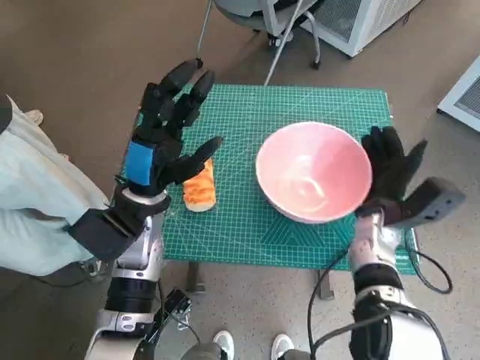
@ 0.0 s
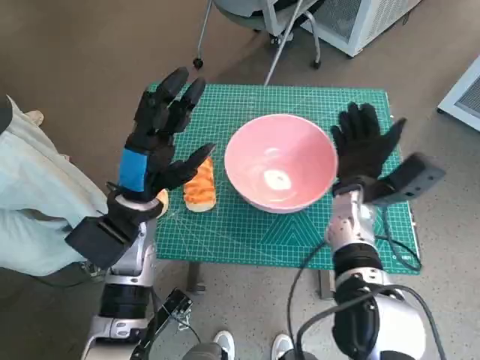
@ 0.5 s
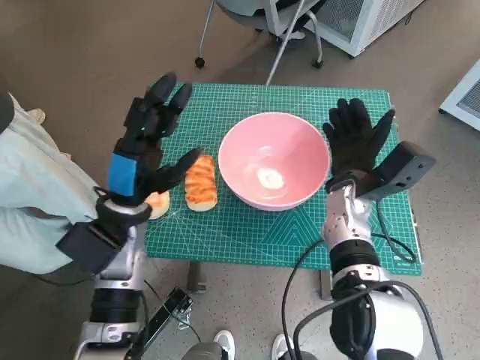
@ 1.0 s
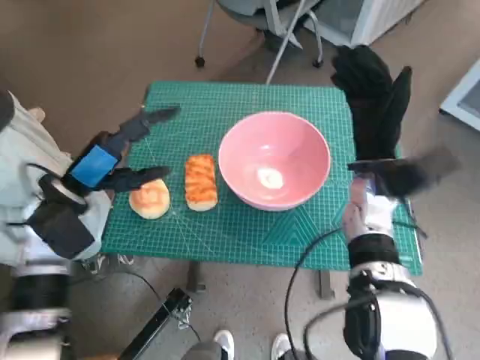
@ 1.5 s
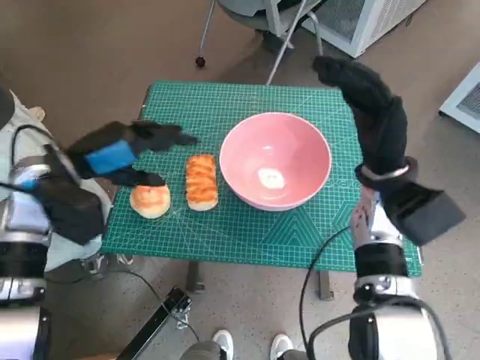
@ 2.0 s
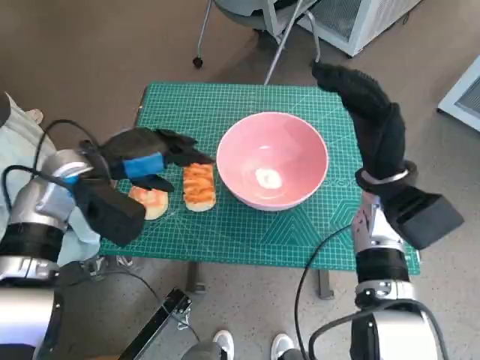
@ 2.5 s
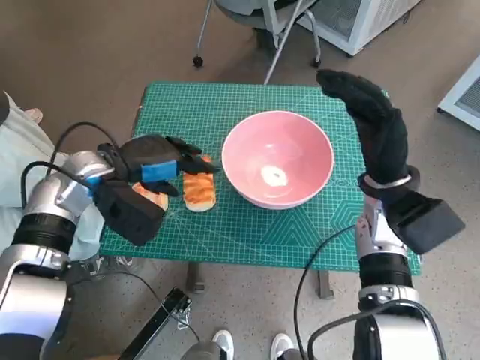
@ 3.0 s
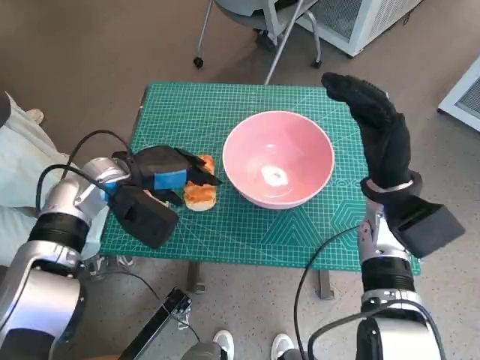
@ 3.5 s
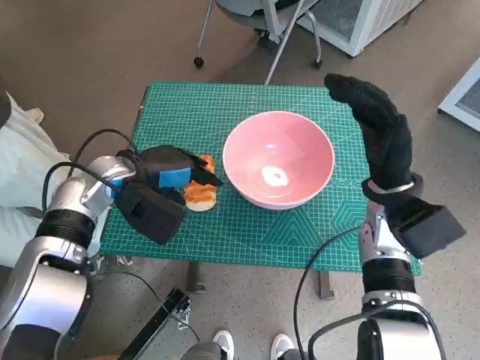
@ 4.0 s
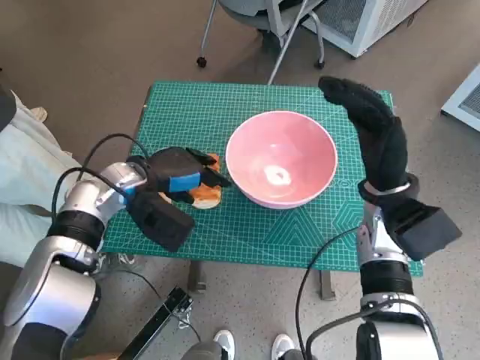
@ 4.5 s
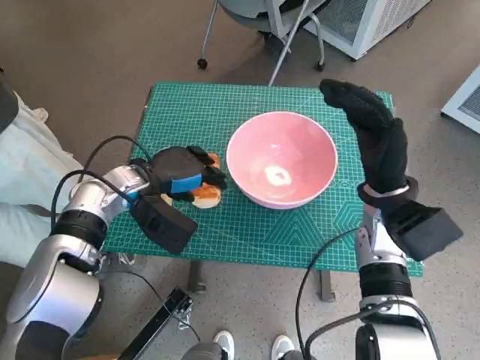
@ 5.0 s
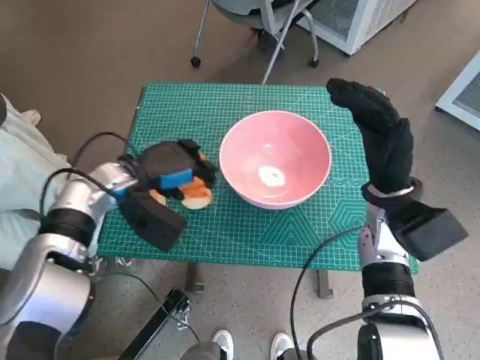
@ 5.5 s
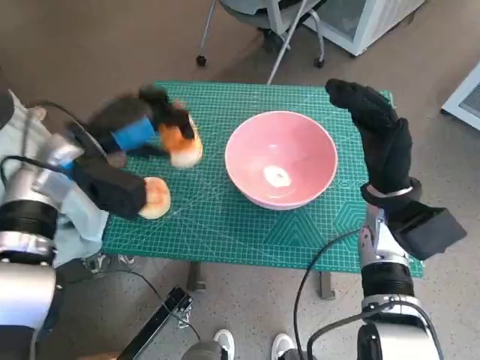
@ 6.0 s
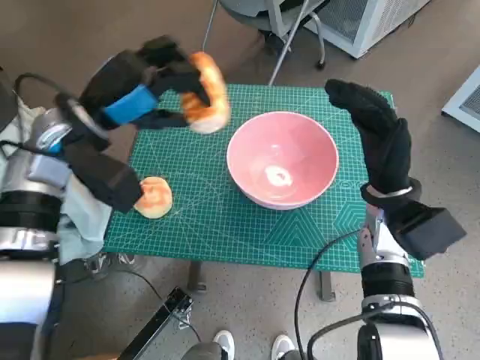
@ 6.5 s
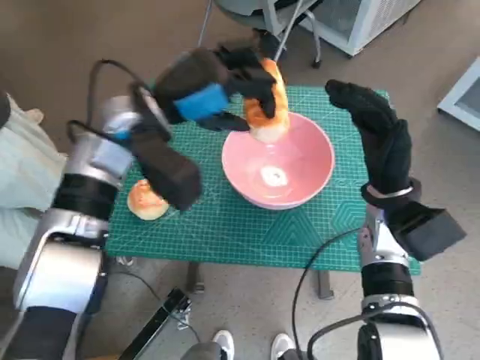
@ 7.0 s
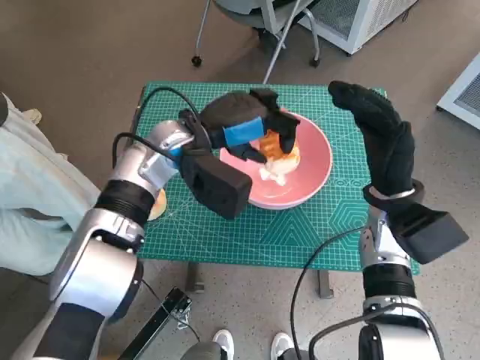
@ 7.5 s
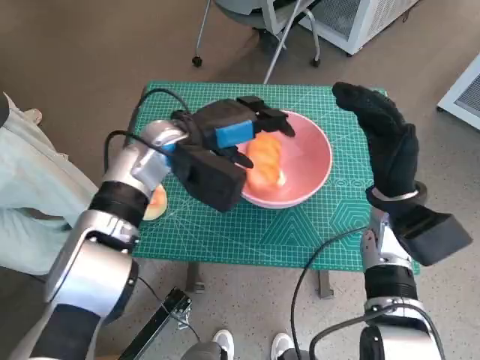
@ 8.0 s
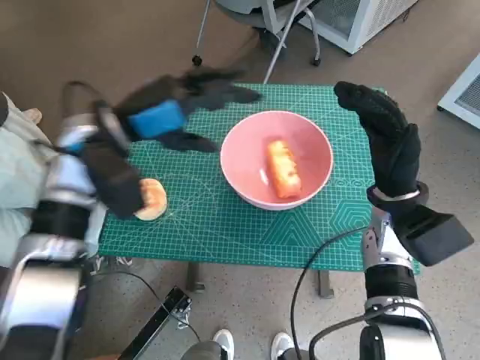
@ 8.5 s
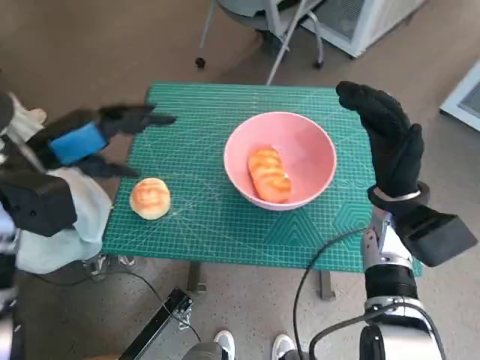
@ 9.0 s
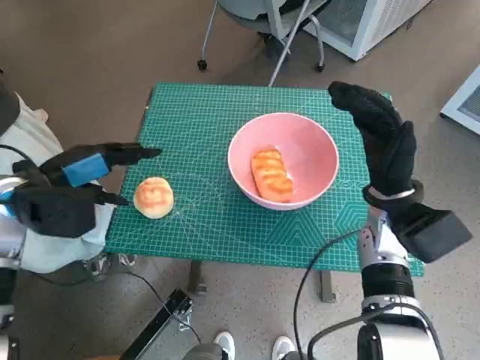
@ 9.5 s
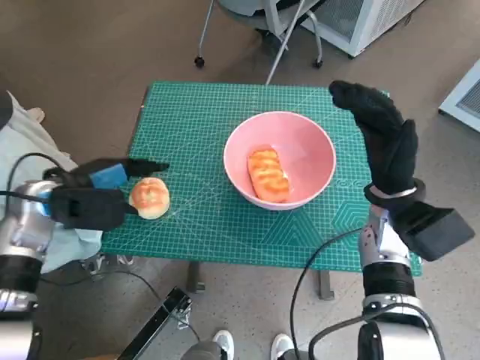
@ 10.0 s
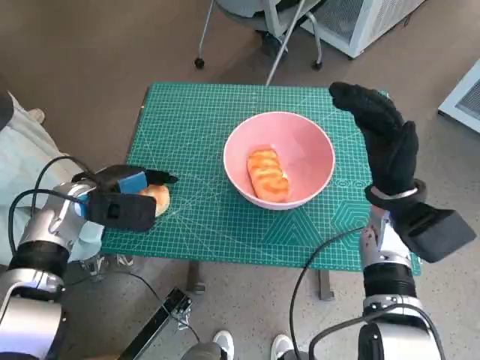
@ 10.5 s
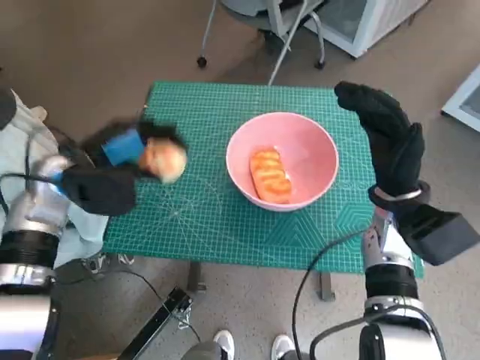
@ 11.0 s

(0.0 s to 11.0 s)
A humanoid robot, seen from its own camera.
Task of the whole recording: Push the bowl to the center of the table and put the bread into the bowl.
Step, 1.5 s - 5.0 s: Grasp the long bread with left hand.
Step, 5.5 s - 7.5 s: Place the long bread in pink bowl with left hand.
Step, 8.0 s - 10.5 s: Grasp the round bread with left hand.
0.0 s - 2.0 s: The right hand travels upward by roughly 10 cm, while the left hand heads to the left and upward, covering approximately 10 cm.
2.0 s - 3.5 s: The left hand shifts some 5 cm to the right.
3.5 s - 5.5 s: The hands move only a little.
5.5 s - 7.5 s: The left hand travels to the right and upward by some 10 cm.
7.5 s - 9.0 s: The left hand is displaced to the left and backward by about 20 cm.
9.0 s - 11.0 s: The left hand is displaced downward by about 5 cm.

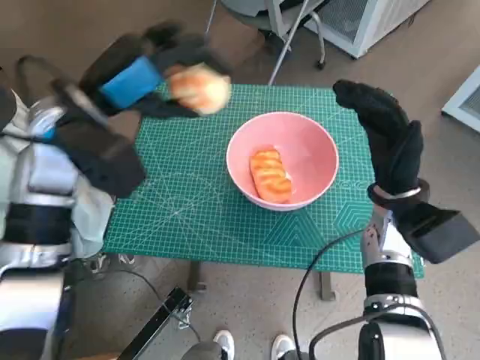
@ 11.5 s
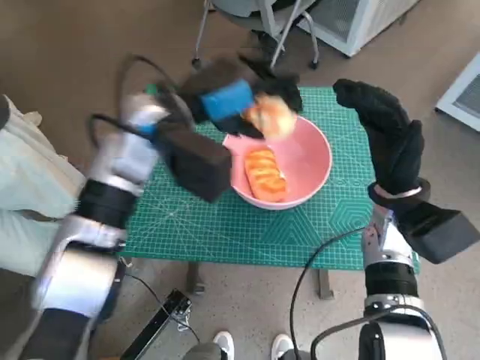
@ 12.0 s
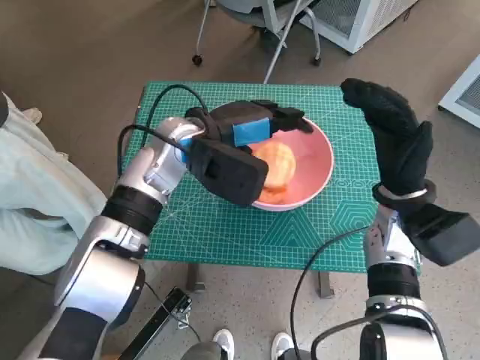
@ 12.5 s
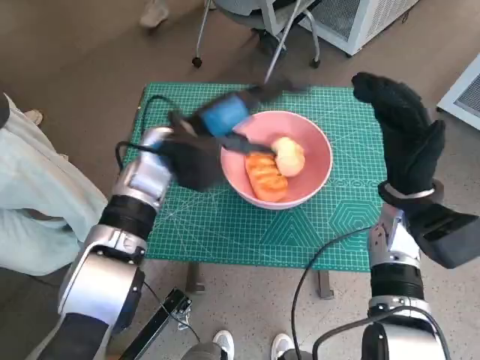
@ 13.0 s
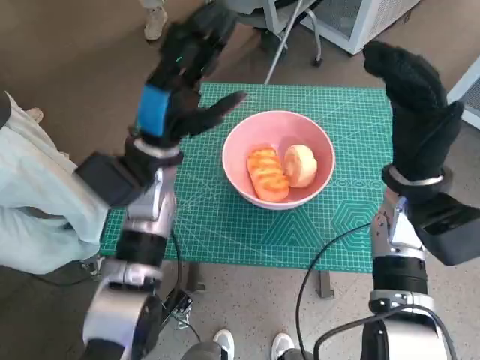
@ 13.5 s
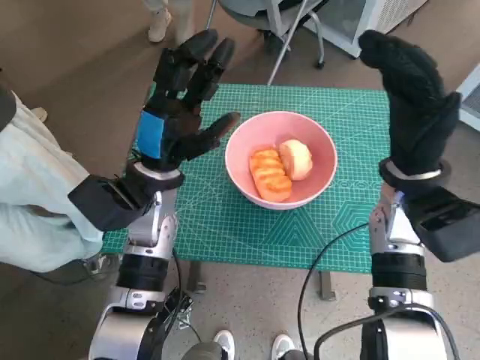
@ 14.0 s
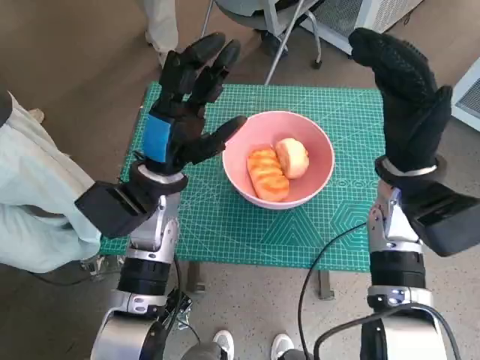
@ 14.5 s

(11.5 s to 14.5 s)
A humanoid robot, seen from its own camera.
Task of the whole recording: Push the bowl to the center of the table and put the bread into the bowl.
Step, 11.5 s - 12.5 s: Place the round bread in pink bowl with left hand.
11.5 s - 13.0 s: The left hand travels to the right and downward by roughly 10 cm.
13.0 s - 14.5 s: The left hand travels backward by roughly 5 cm.

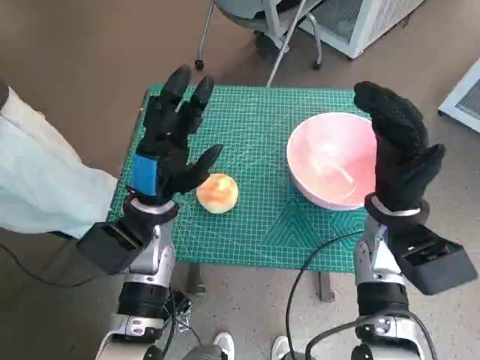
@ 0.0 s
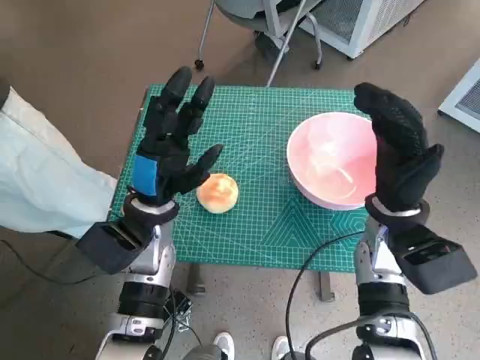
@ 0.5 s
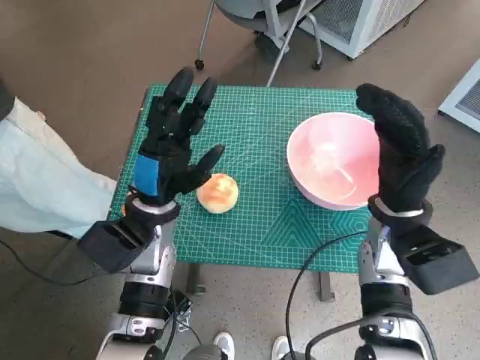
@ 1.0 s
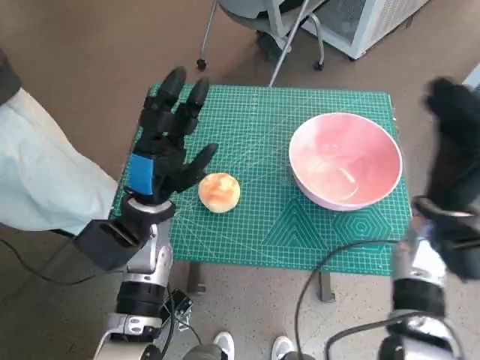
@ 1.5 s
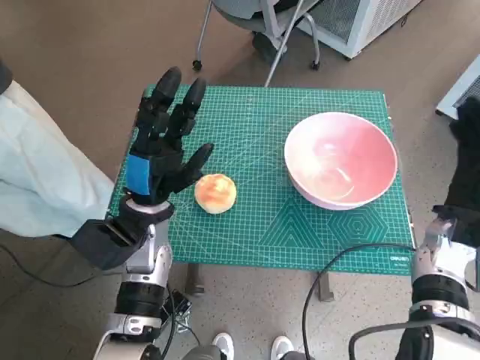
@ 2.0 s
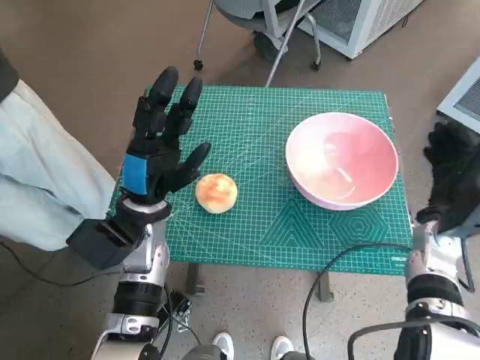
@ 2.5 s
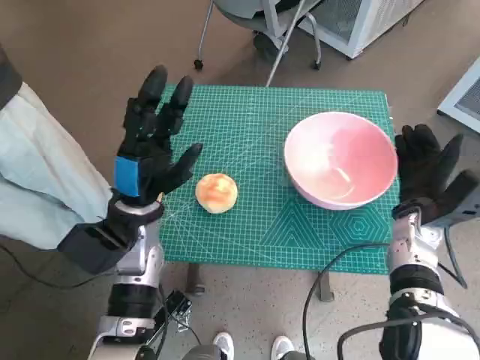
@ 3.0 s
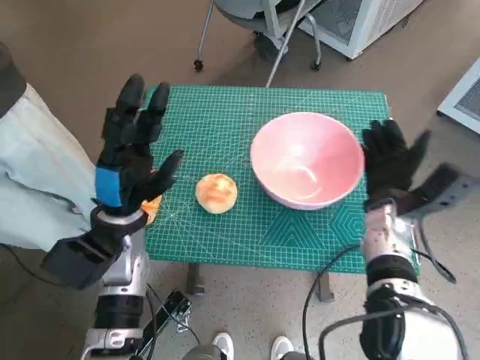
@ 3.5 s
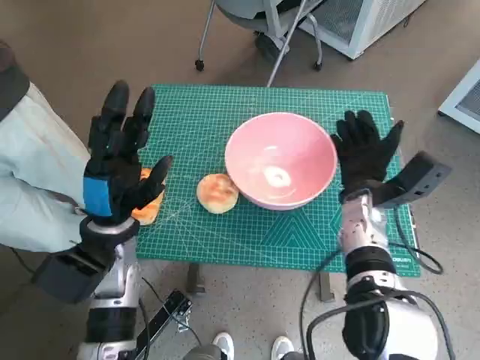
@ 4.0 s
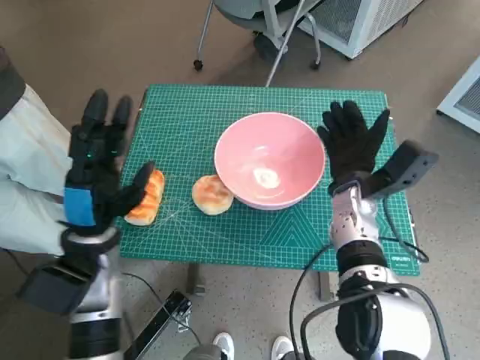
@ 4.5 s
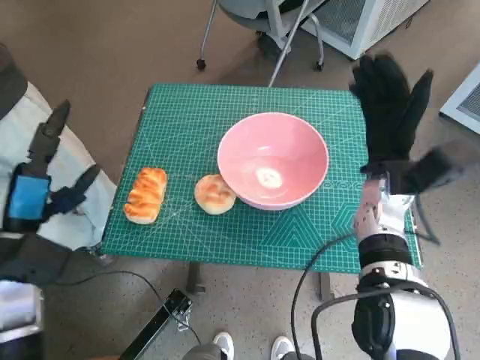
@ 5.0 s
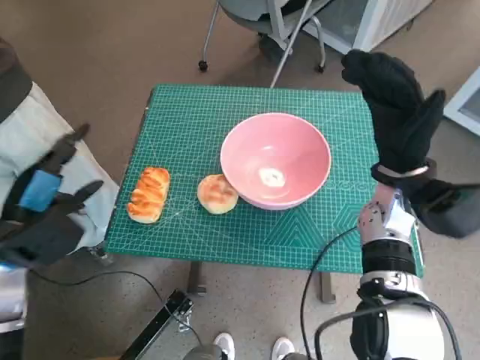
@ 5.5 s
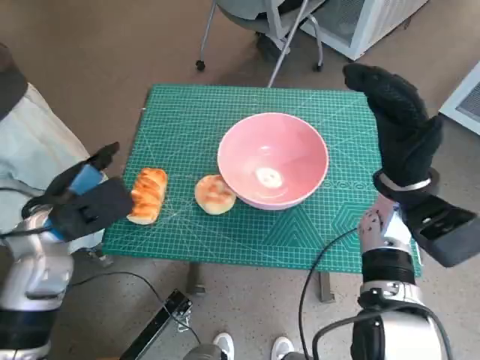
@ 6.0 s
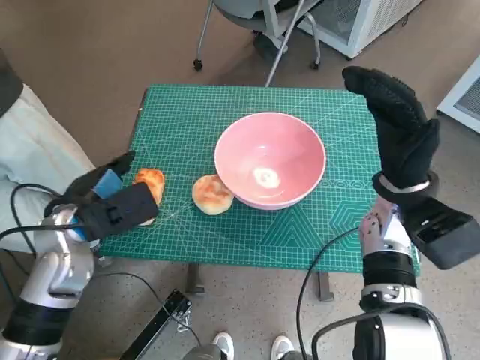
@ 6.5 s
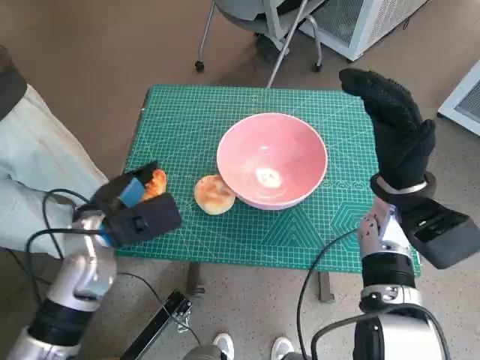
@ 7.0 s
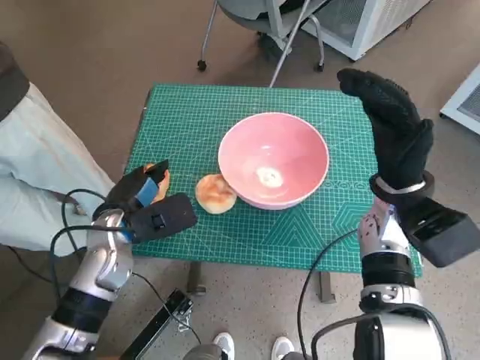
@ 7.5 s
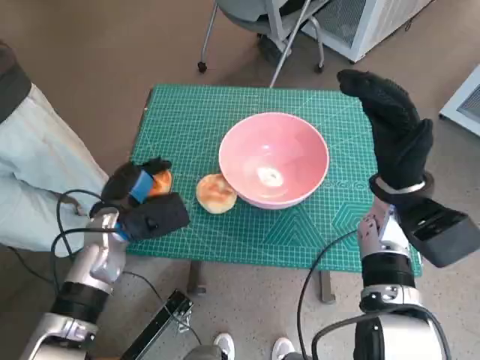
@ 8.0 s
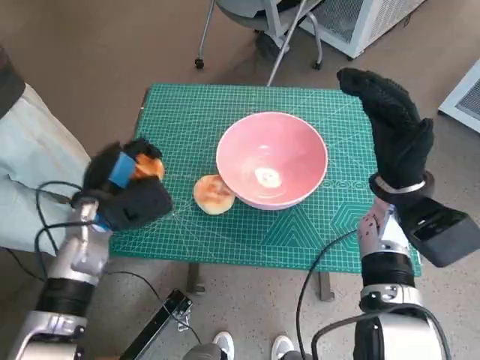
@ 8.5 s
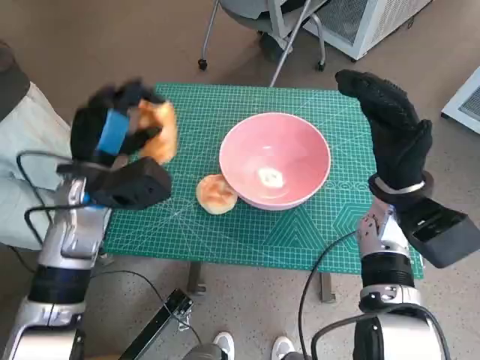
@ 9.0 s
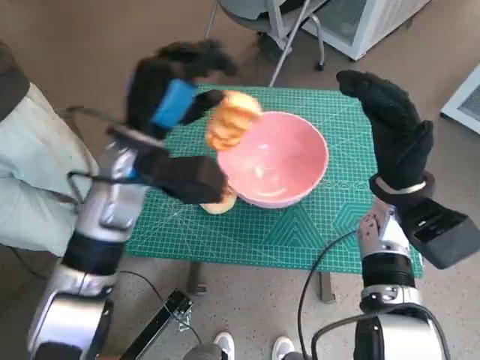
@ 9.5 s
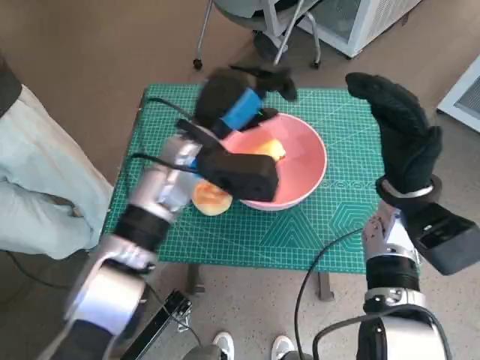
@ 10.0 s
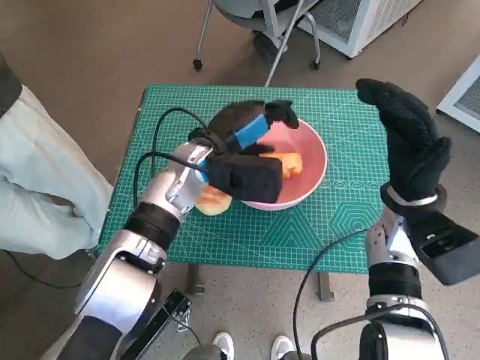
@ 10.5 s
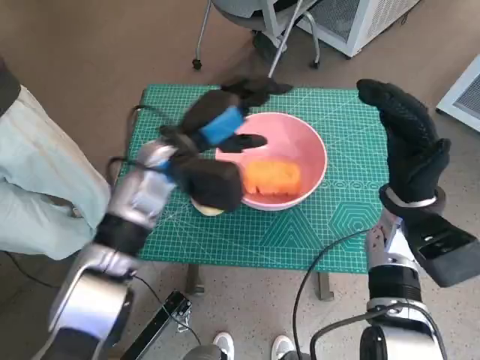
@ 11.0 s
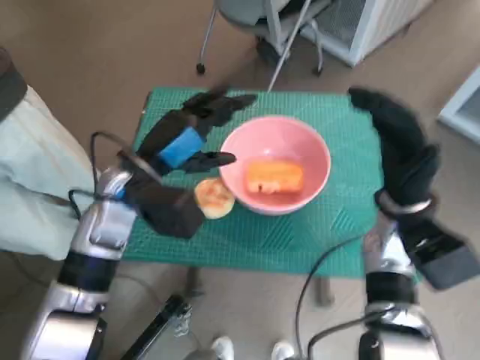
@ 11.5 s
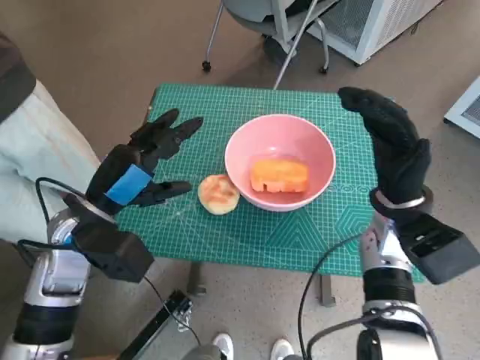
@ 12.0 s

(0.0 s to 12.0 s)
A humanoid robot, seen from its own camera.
Task of the whole recording: Push the bowl to the center of the table and put the bread into the bowl.
Step, 0.0 s - 4.5 s: Move the pink bowl to the center of table with right hand.
Step, 5.0 s - 8.0 s: Grasp the long bread with left hand.
Step, 8.5 s - 10.0 s: Place the long bread in pink bowl with left hand.
2.0 s - 4.0 s: The right hand shifts roughly 10 cm to the left.
4.0 s - 6.0 s: The left hand is displaced to the left by some 5 cm, while the right hand goes about 5 cm upward.
6.0 s - 8.0 s: The left hand is displaced downward and to the right by about 10 cm.
8.0 s - 10.0 s: The left hand shifts about 20 cm to the right, upward and forward.
10.0 s - 12.0 s: The left hand shifts some 15 cm to the left and backward.
